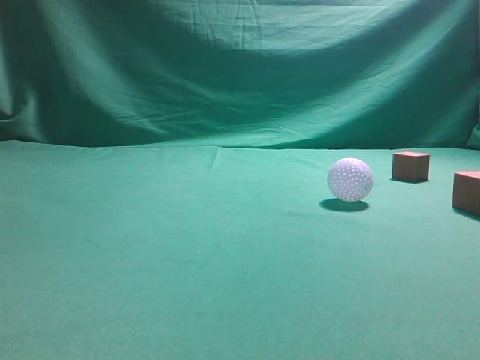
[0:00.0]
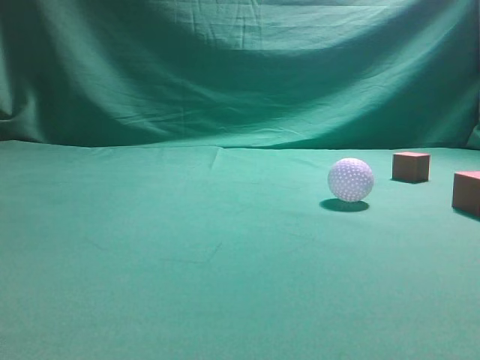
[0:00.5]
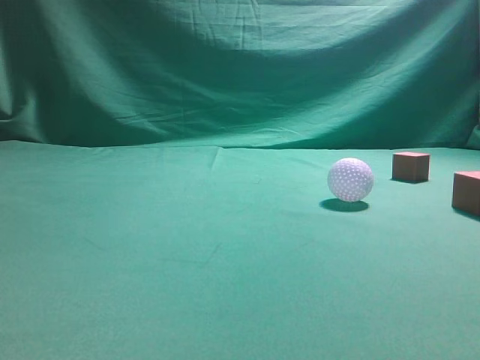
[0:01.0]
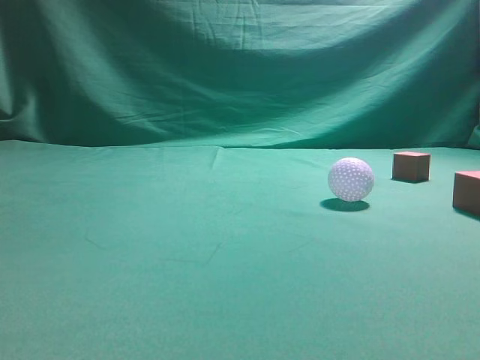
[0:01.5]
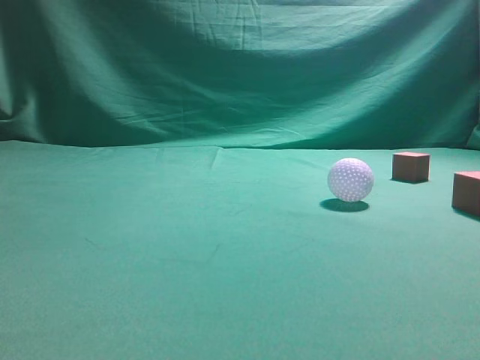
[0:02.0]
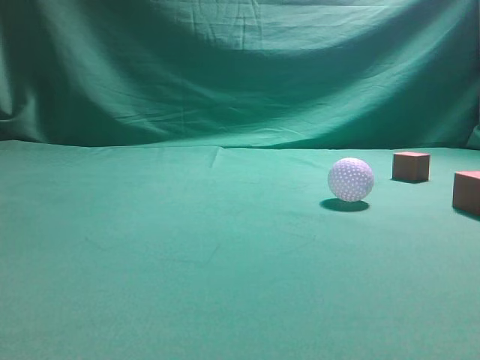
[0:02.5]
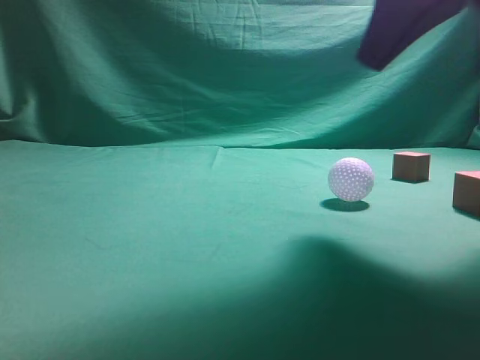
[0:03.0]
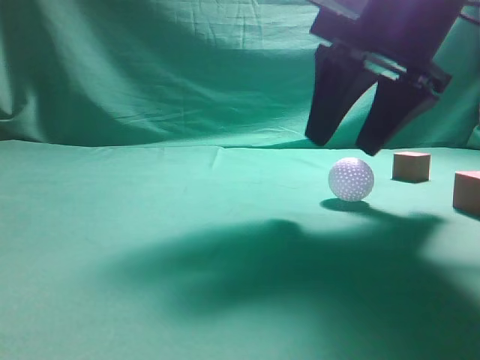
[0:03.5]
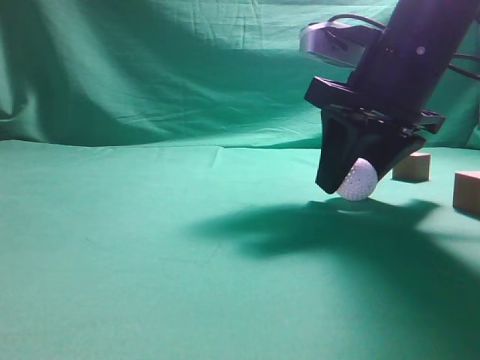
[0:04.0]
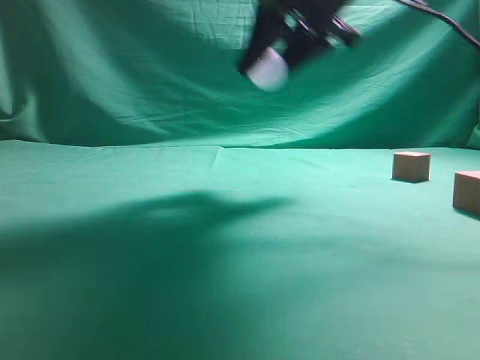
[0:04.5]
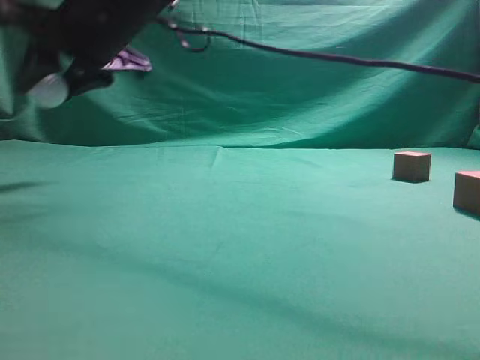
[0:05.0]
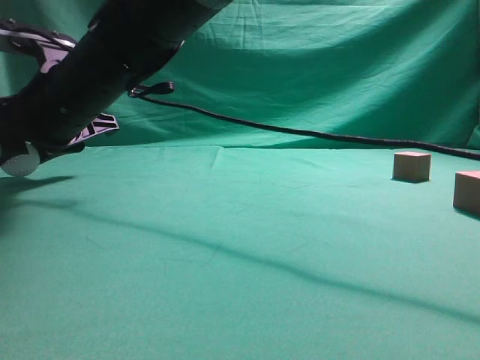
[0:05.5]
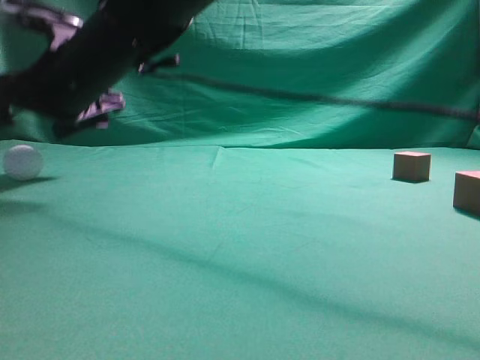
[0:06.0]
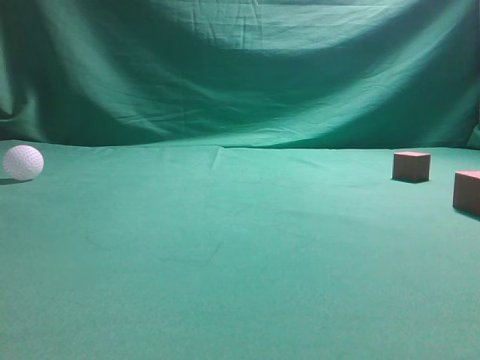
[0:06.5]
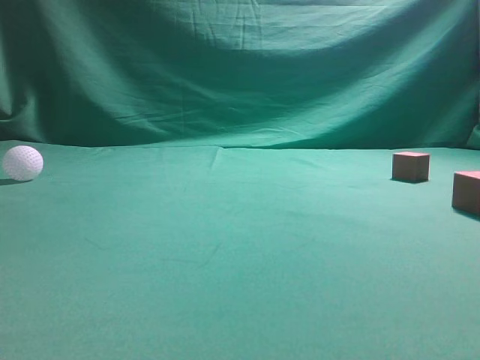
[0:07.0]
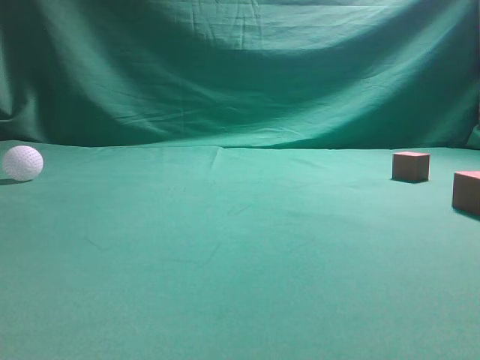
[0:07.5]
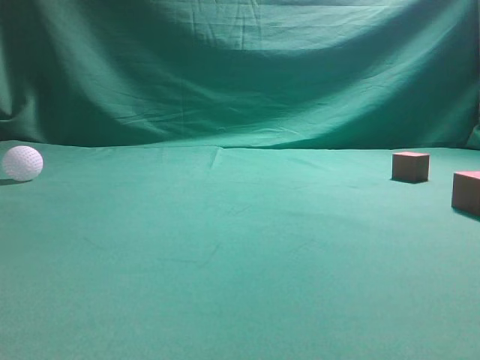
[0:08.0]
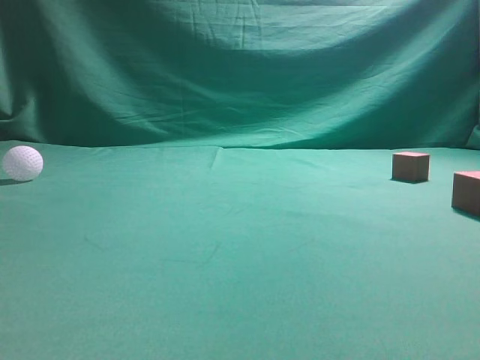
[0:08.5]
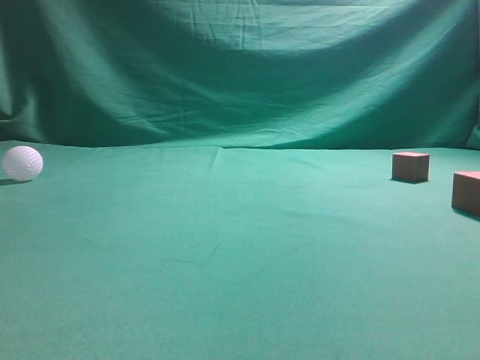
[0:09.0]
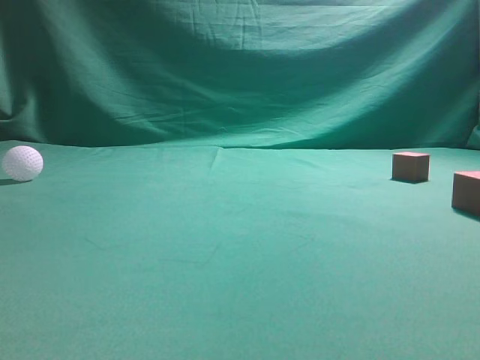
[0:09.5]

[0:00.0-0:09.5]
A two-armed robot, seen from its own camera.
Step, 0:00.0 to 0:04.0: Grasp the spherical object on the right side.
0:02.0 to 0:04.0: The right gripper moves forward, to the left and downward, about 30 cm, and opens up.
0:04.0 to 0:05.5: The right gripper moves to the left, roughly 30 cm.
0:05.5 to 0:07.5: The right gripper goes approximately 50 cm to the right, upward and backward, and closes.
